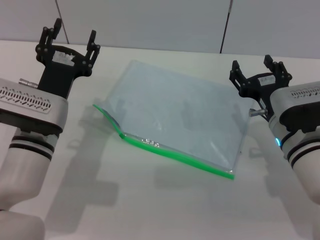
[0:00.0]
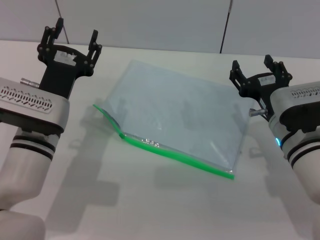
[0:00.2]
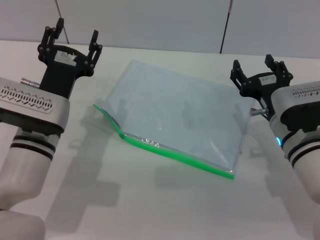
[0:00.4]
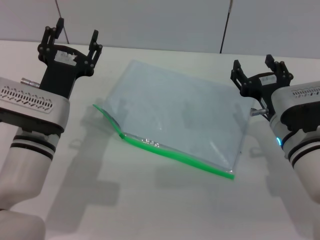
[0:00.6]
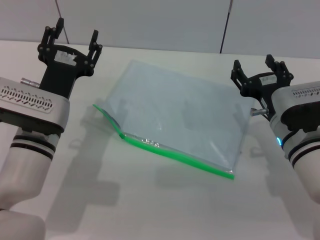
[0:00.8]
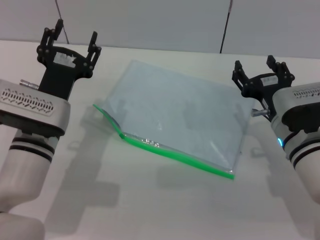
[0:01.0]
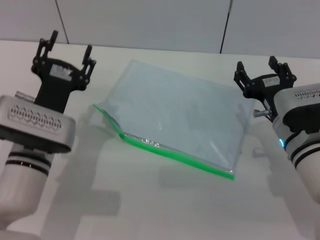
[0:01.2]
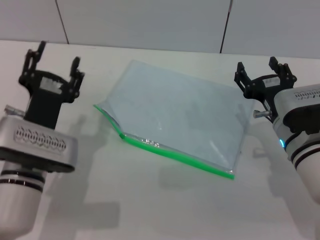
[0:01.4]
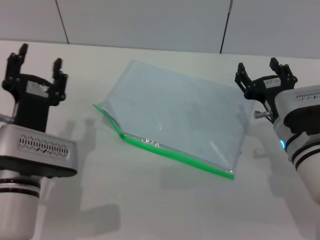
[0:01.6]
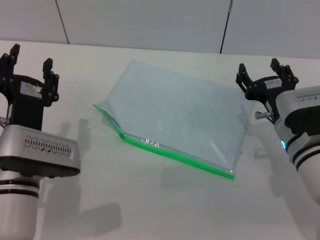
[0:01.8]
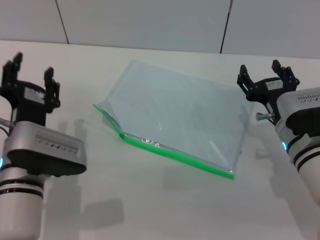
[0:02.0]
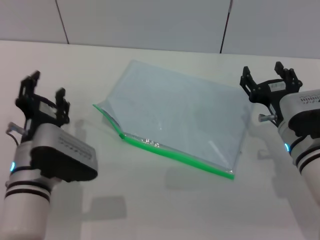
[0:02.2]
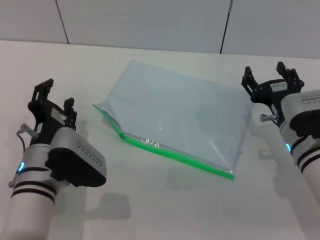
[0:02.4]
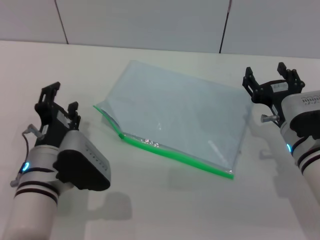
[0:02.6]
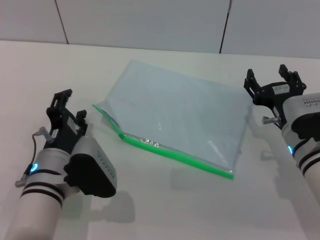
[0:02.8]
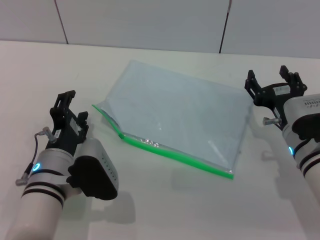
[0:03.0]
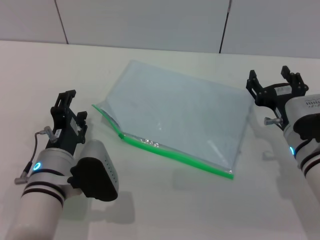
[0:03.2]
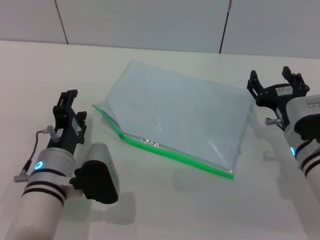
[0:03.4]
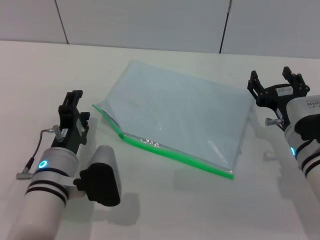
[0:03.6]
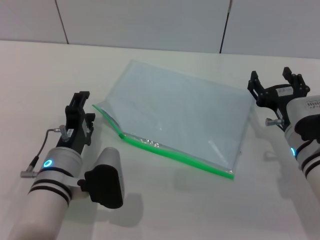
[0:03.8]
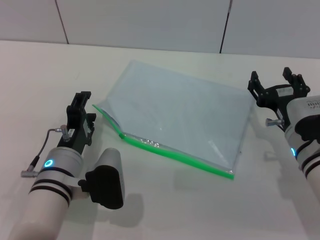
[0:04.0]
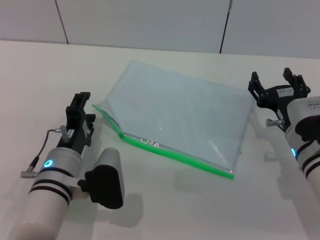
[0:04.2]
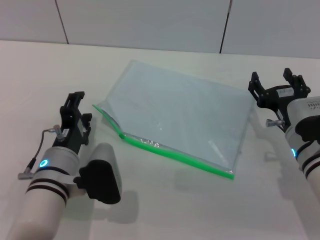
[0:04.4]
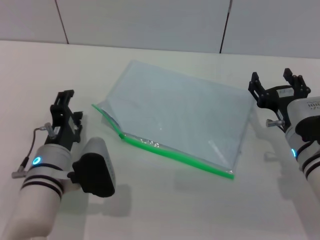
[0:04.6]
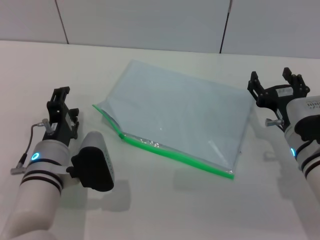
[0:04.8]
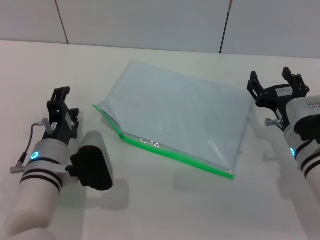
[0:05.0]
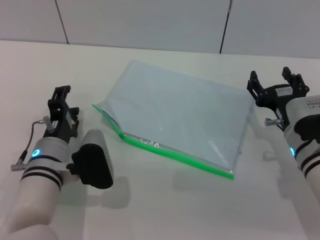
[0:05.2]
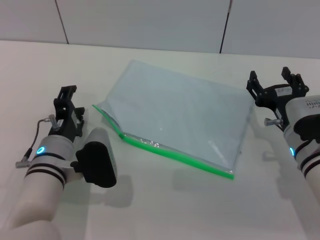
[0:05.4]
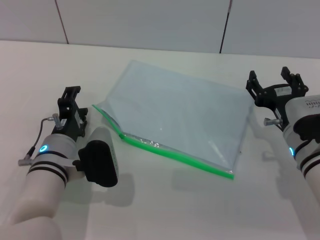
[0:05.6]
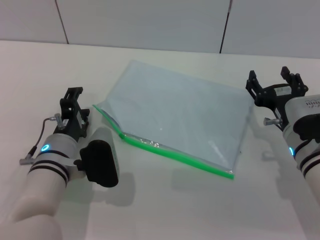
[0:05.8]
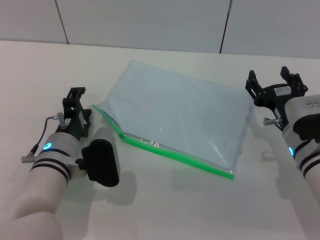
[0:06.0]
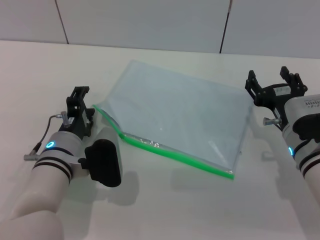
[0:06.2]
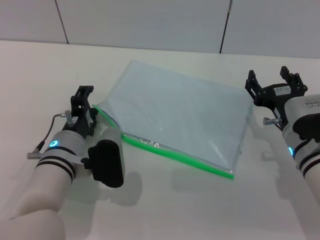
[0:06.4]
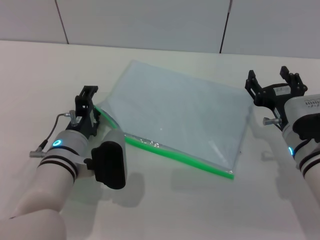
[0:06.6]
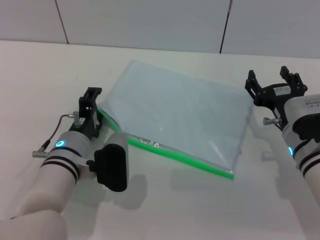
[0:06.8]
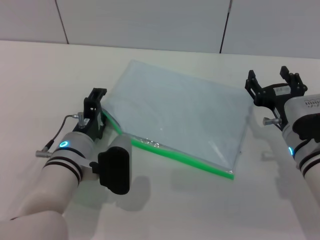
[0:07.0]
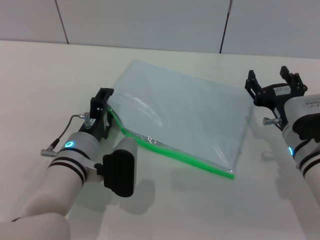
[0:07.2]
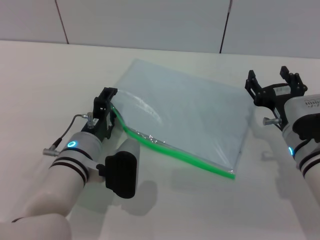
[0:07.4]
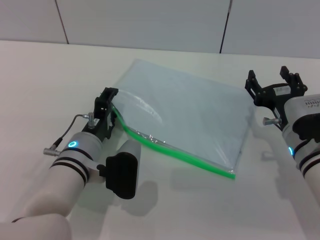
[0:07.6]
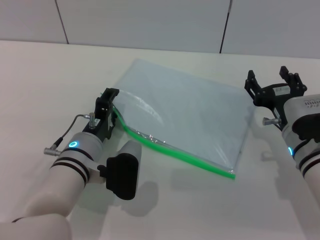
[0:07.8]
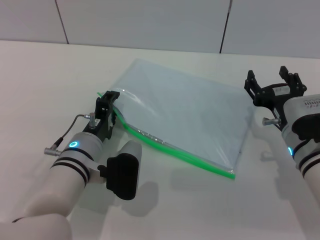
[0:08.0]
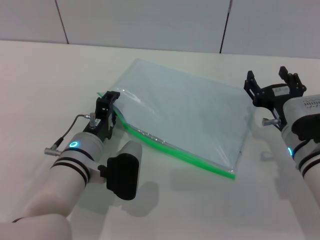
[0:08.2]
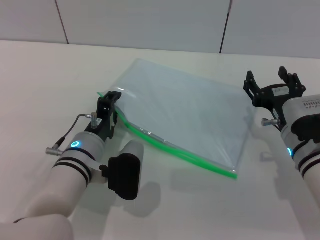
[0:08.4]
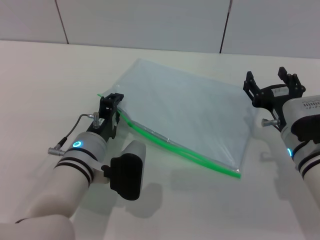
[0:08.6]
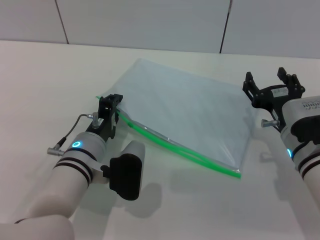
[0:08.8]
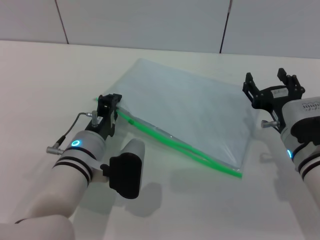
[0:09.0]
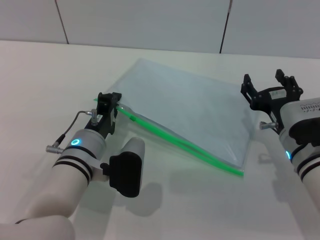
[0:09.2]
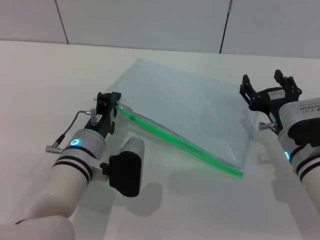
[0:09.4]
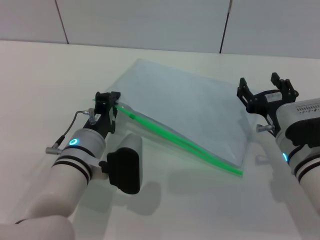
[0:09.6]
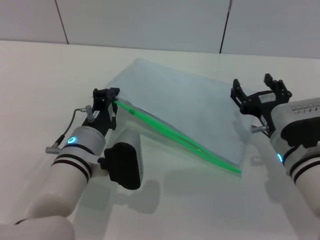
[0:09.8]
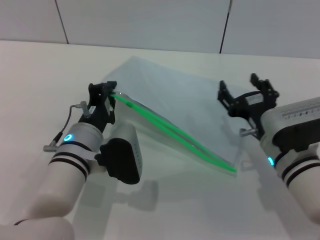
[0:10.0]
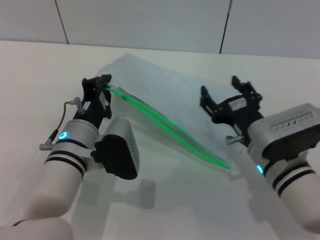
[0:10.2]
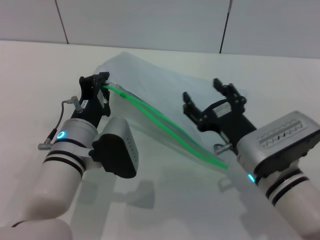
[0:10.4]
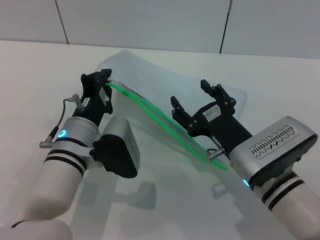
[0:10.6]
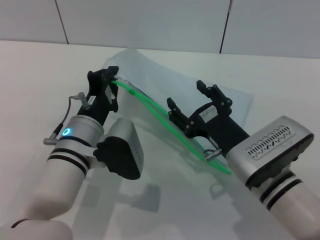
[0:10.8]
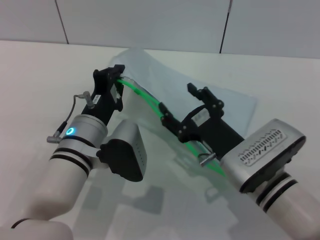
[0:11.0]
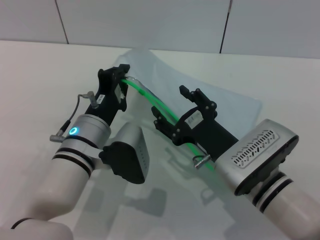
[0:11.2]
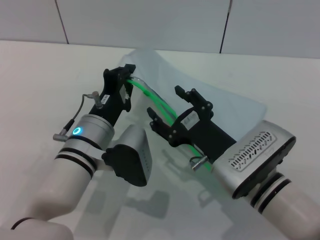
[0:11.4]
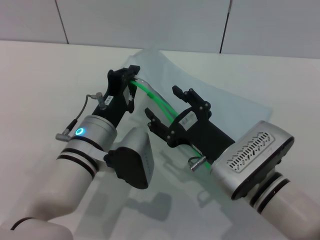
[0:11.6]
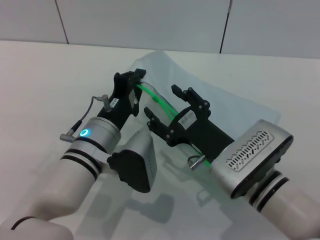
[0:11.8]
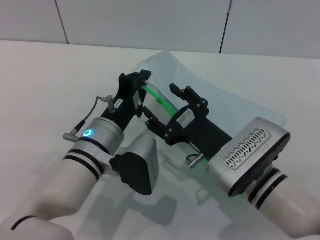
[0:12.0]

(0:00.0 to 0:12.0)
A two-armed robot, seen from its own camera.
Step, 0:00.0 - 0:10.0: Pick up the transparent plastic bag with the left gripper.
0:00.0 - 0:01.6: The left gripper travels backward by roughly 5 cm.
0:03.0 - 0:06.0: The grippers make only small movements.
0:06.0 - 0:07.6: There are only small adjustments of the grippers.
0:07.6 - 0:09.0: The left gripper closes its fingers.
0:09.0 - 0:10.4: The right gripper goes roughly 5 cm to the left.

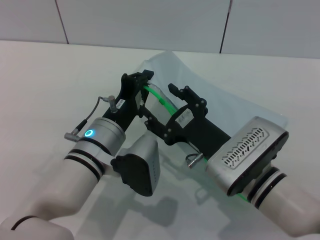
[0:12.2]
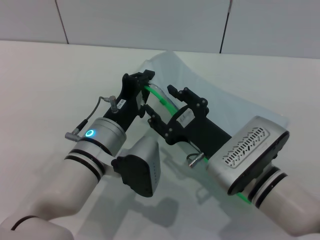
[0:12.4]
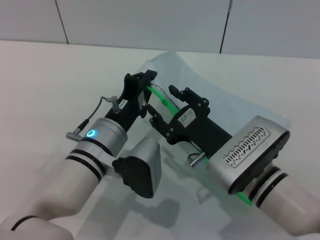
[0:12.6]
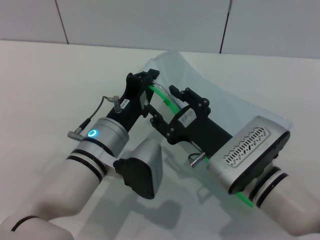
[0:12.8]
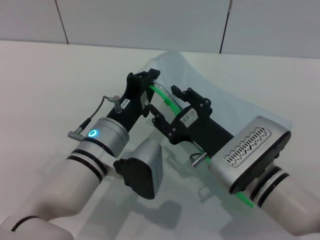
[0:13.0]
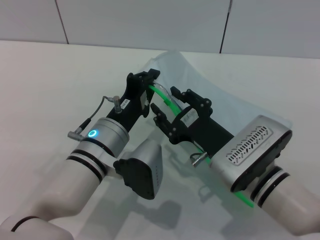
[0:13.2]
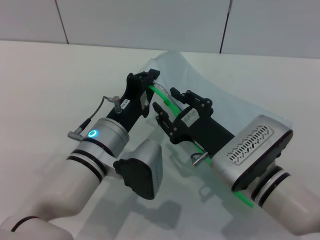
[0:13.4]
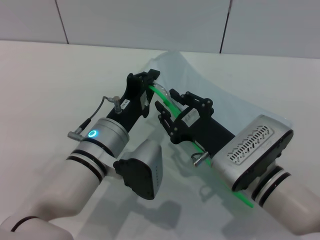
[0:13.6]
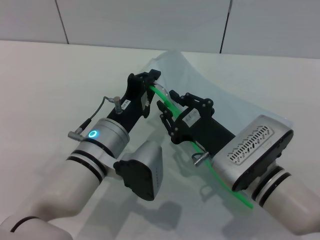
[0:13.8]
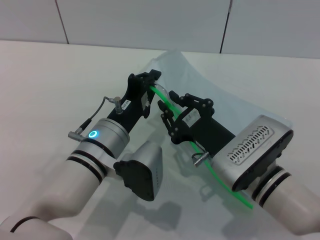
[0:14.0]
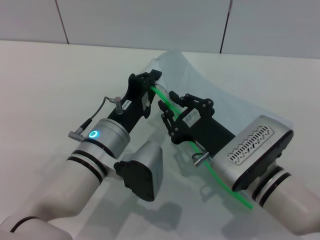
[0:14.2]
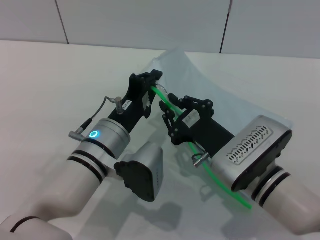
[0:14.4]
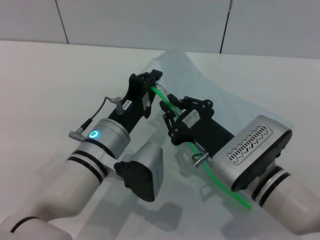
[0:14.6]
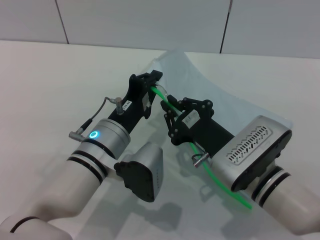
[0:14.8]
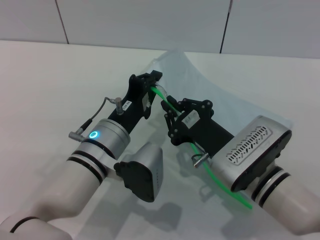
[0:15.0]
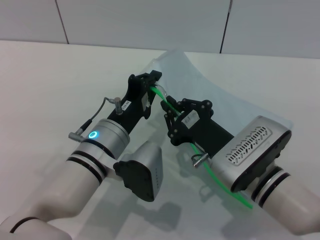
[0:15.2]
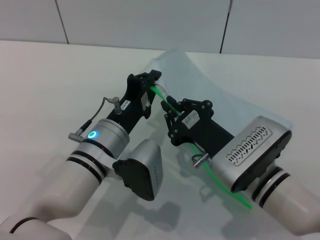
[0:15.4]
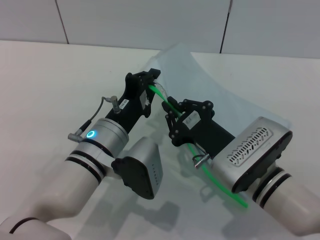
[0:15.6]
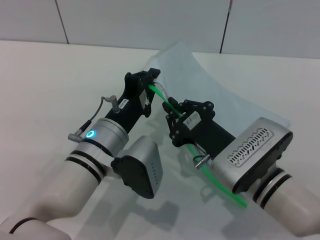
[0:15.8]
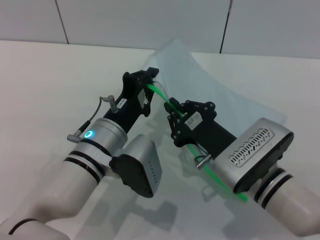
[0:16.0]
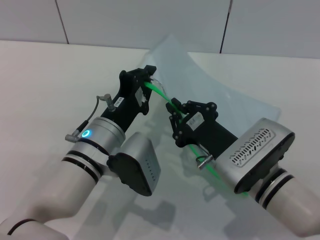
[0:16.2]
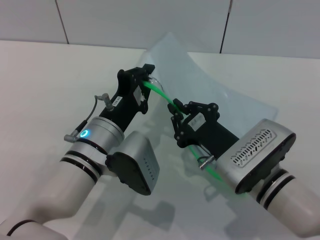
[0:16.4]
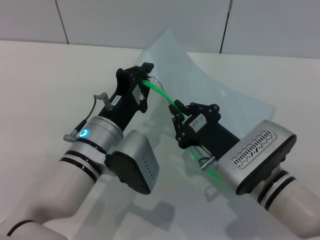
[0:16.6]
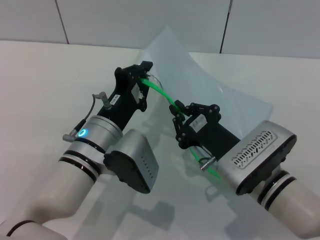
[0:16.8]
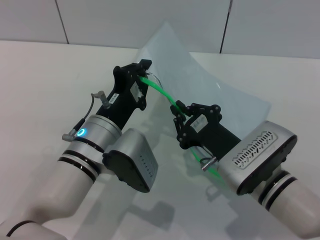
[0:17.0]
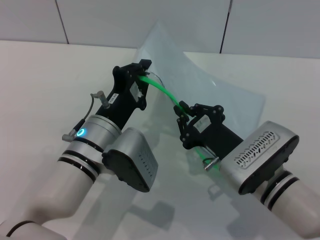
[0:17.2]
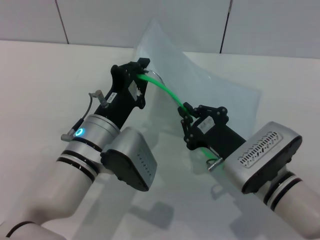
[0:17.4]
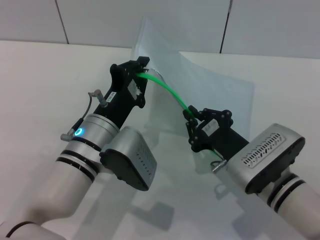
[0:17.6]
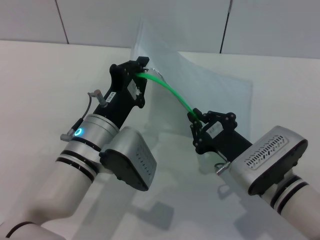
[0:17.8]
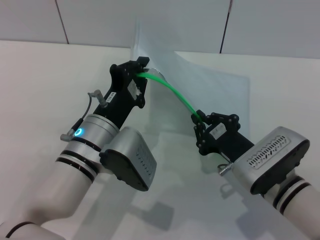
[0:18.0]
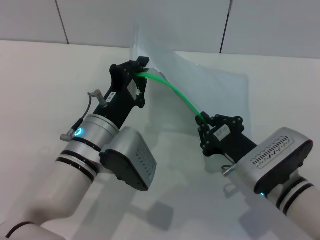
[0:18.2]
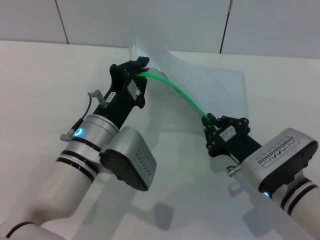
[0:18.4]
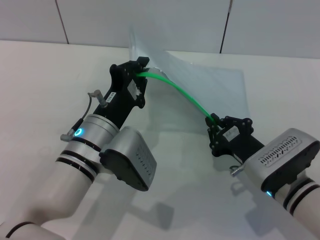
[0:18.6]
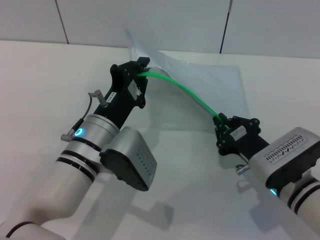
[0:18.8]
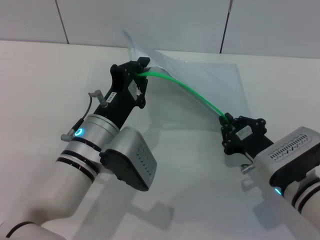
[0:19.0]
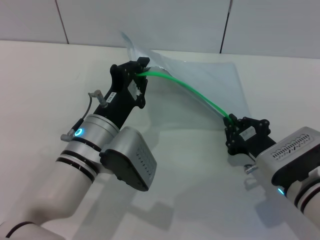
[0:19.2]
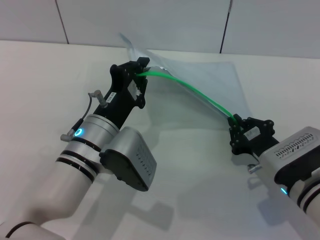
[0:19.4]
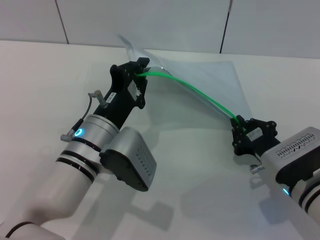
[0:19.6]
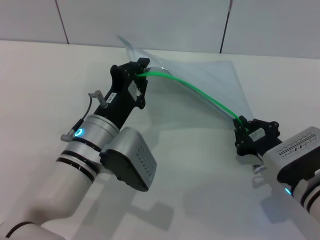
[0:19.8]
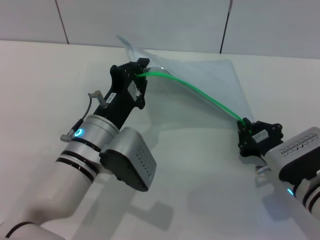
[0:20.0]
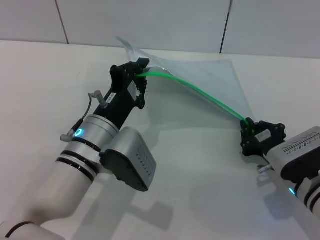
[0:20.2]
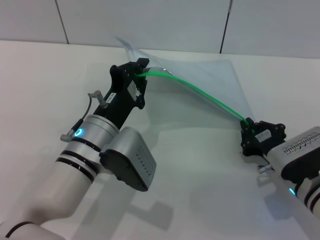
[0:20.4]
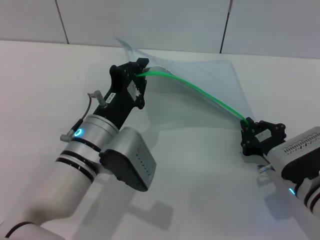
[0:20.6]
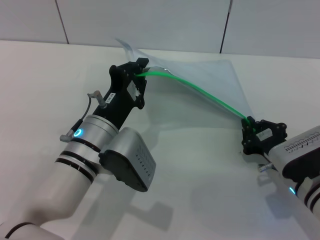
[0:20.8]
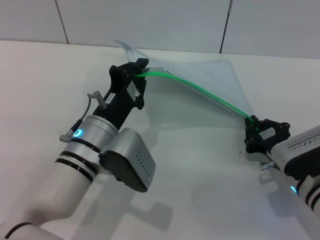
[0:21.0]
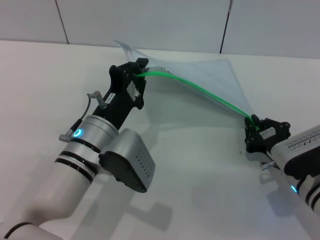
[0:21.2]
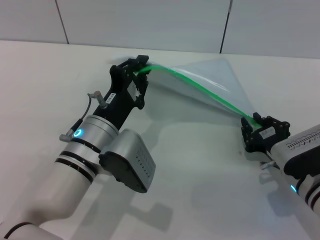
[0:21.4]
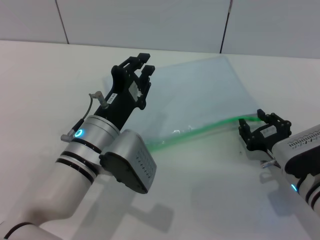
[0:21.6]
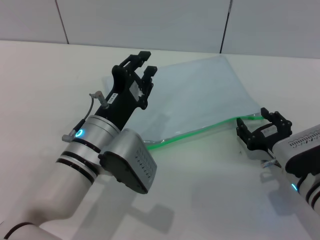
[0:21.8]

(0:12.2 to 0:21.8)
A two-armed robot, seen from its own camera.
Step, 0:12.2 - 0:21.6: Pulling up the zipper on the transparent plastic bag with the right gripper to close it.
0:12.2 - 0:13.8: The right gripper closes up.
0:13.8 - 0:15.4: The right gripper closes up.
0:15.4 - 0:17.0: The grippers move only a little.
0:17.0 - 0:18.6: The right gripper moves about 5 cm.
0:18.6 - 0:20.2: There are only small adjustments of the grippers.
0:20.2 - 0:21.8: The right gripper opens up.

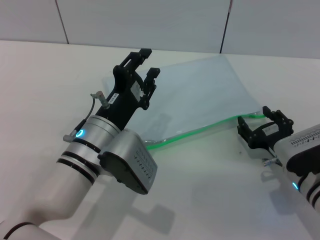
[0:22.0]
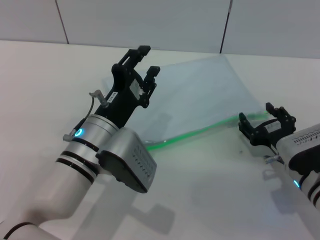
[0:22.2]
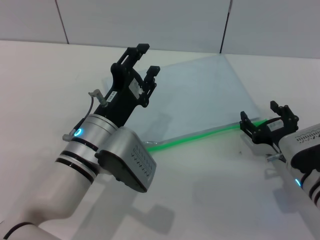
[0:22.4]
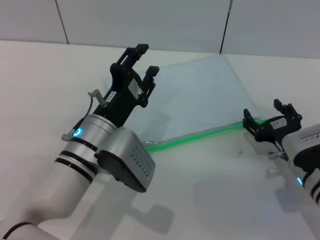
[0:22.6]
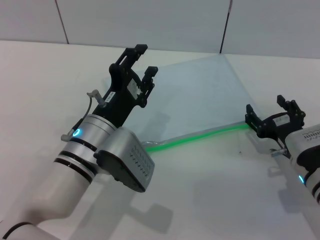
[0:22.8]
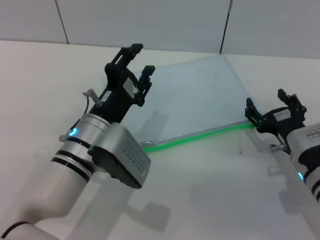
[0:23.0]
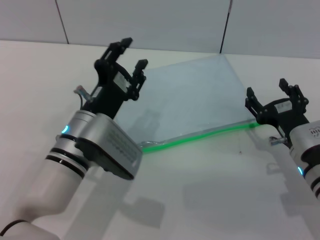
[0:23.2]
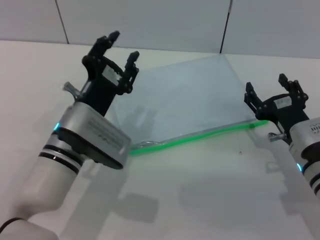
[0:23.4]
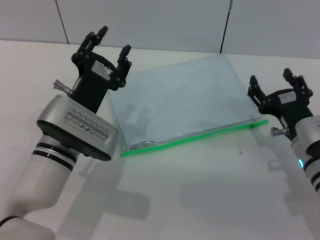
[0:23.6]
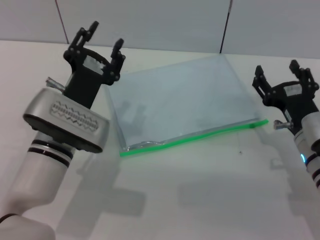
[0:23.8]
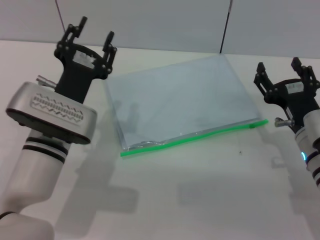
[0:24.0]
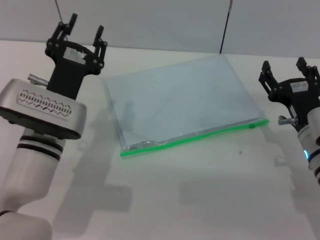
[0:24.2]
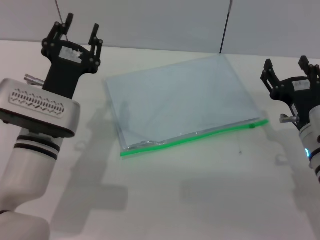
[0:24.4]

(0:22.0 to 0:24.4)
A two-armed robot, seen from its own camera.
Step, 0:22.0 - 0:23.0: Place the transparent plastic bag.
0:22.0 - 0:23.2: The left gripper opens its fingers. Meanwhile the right gripper opens.
